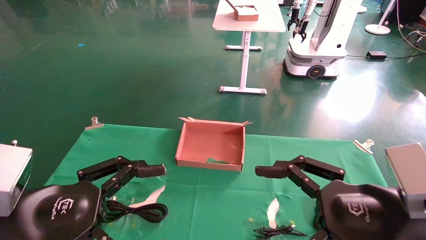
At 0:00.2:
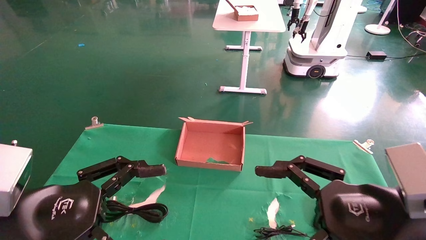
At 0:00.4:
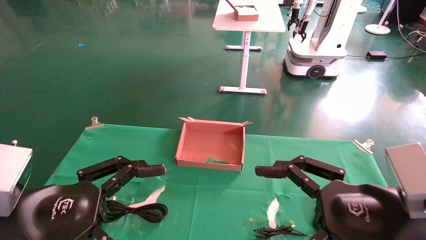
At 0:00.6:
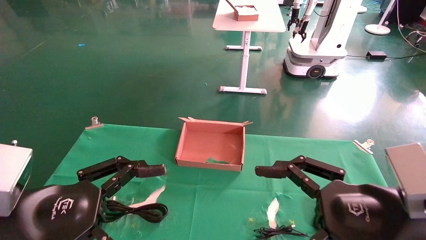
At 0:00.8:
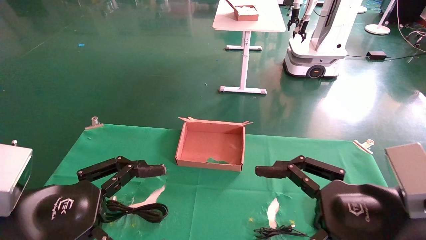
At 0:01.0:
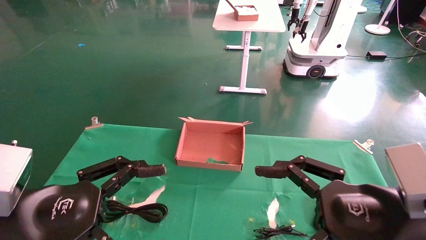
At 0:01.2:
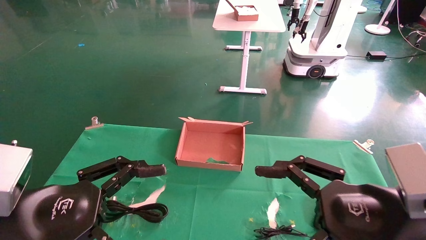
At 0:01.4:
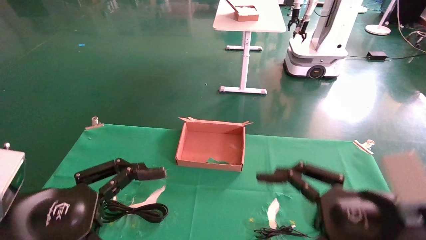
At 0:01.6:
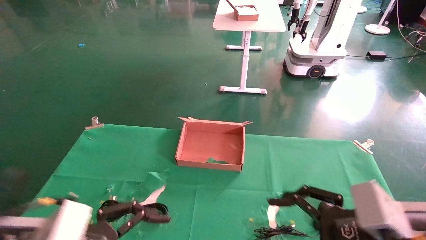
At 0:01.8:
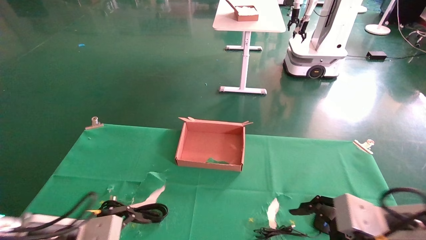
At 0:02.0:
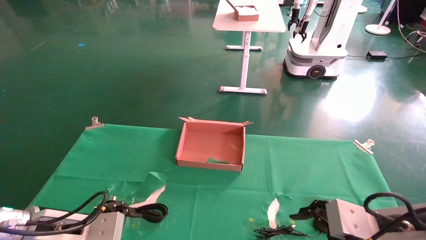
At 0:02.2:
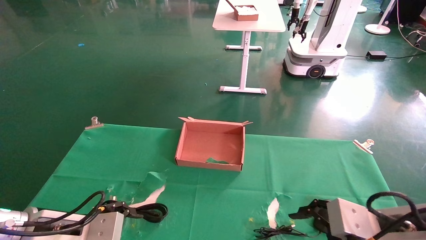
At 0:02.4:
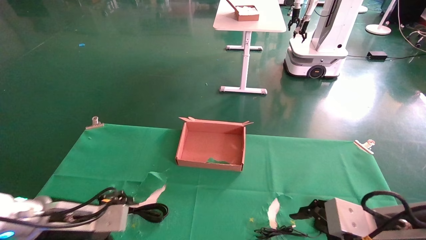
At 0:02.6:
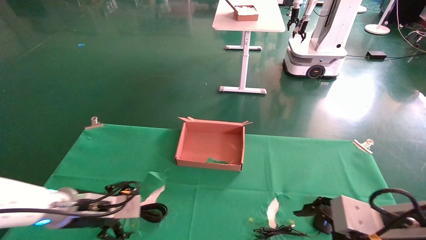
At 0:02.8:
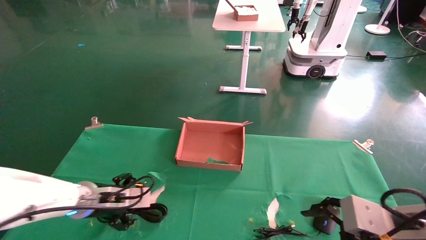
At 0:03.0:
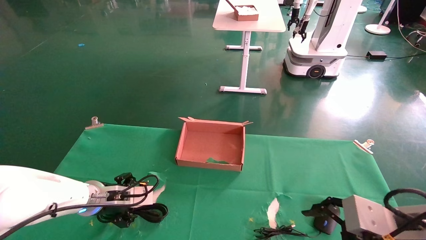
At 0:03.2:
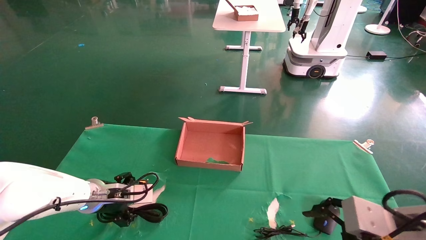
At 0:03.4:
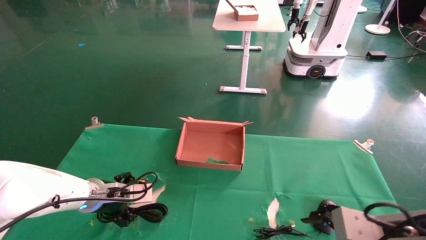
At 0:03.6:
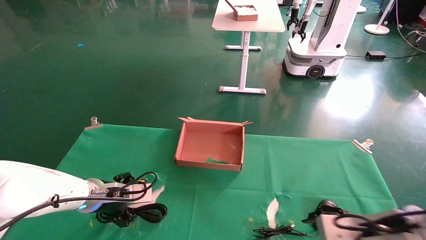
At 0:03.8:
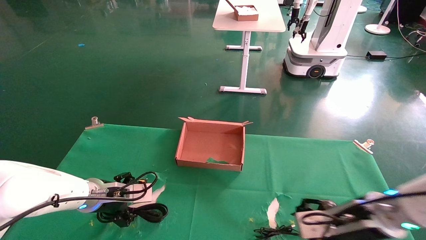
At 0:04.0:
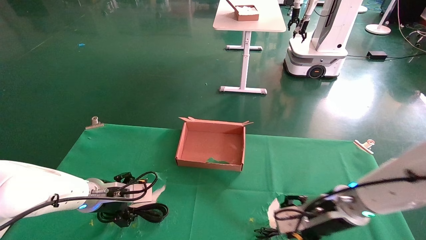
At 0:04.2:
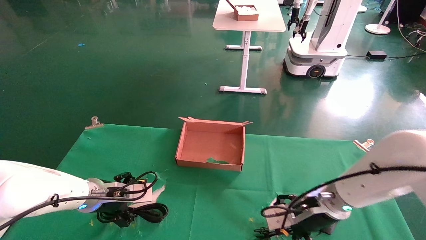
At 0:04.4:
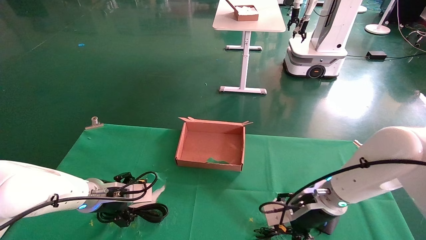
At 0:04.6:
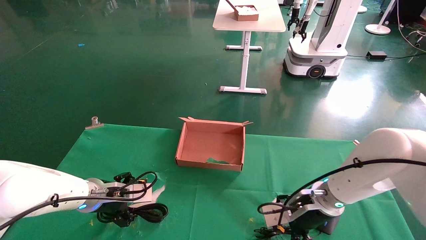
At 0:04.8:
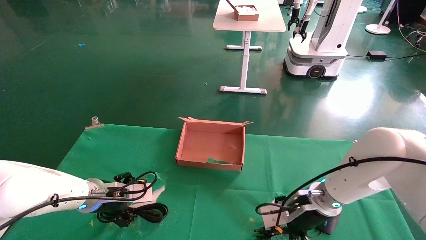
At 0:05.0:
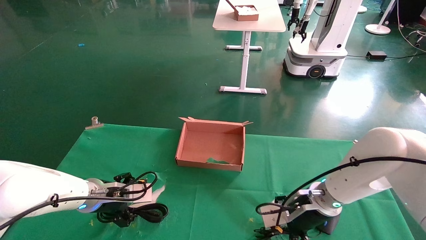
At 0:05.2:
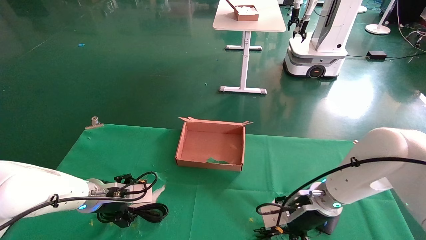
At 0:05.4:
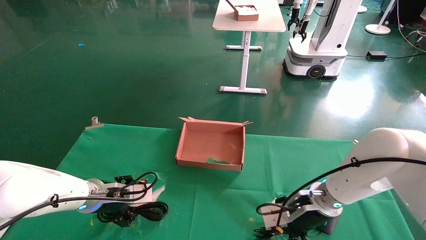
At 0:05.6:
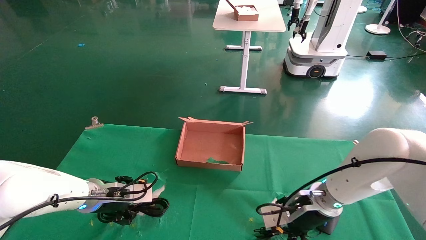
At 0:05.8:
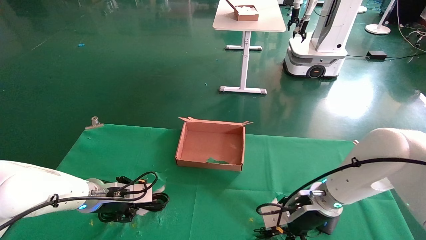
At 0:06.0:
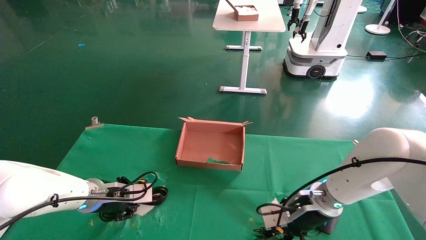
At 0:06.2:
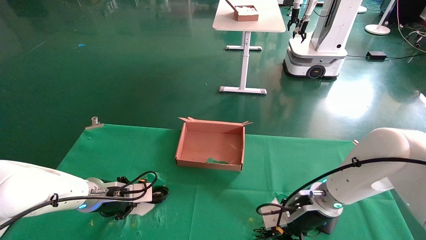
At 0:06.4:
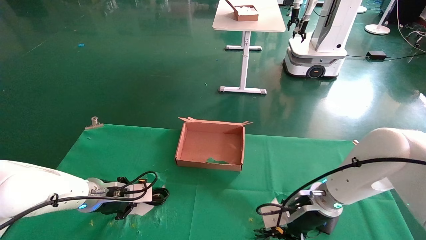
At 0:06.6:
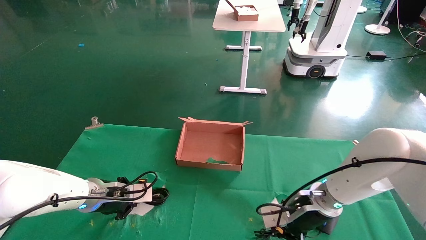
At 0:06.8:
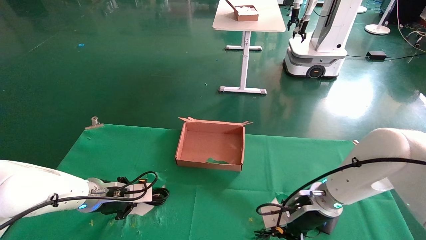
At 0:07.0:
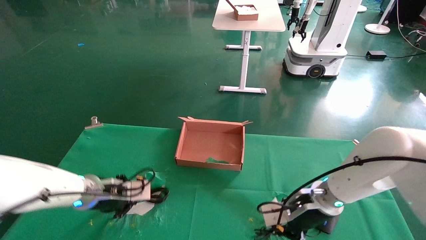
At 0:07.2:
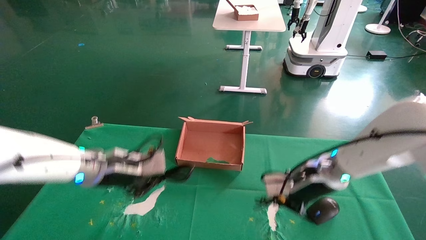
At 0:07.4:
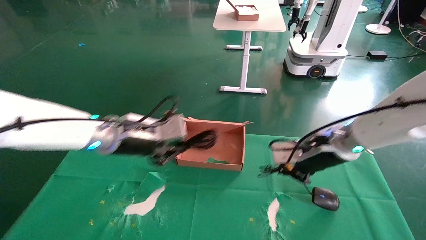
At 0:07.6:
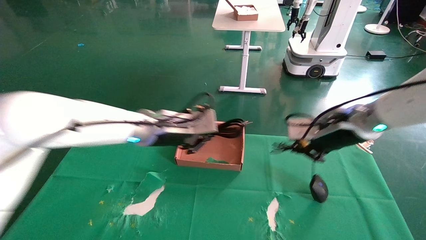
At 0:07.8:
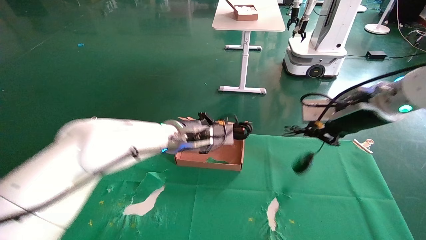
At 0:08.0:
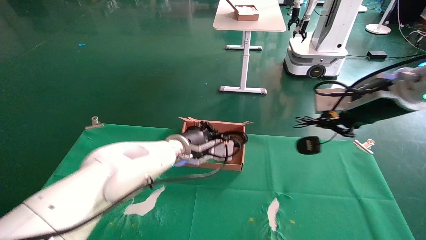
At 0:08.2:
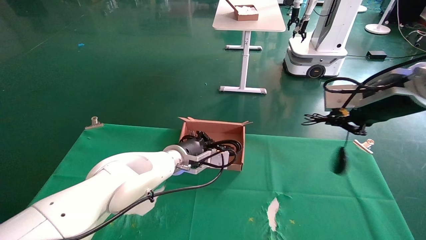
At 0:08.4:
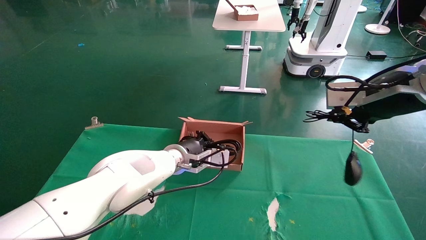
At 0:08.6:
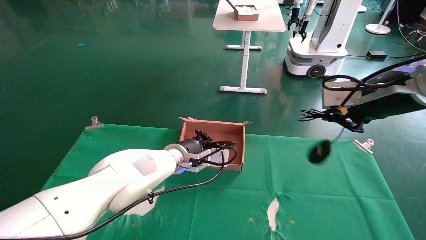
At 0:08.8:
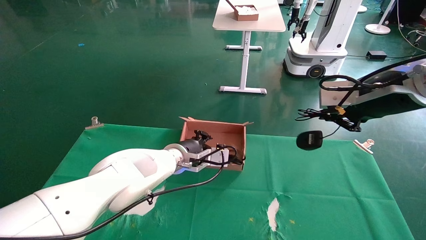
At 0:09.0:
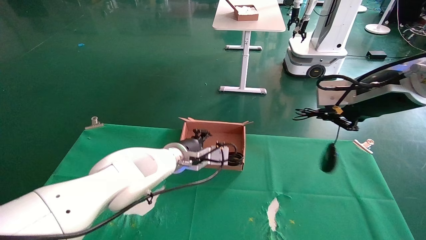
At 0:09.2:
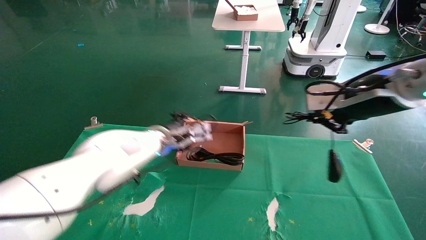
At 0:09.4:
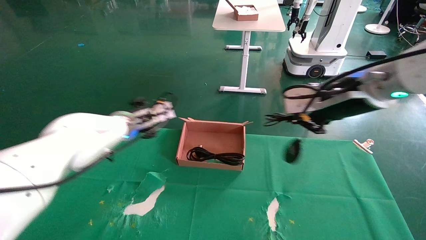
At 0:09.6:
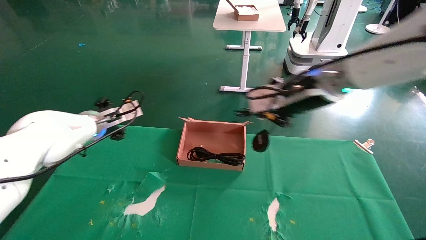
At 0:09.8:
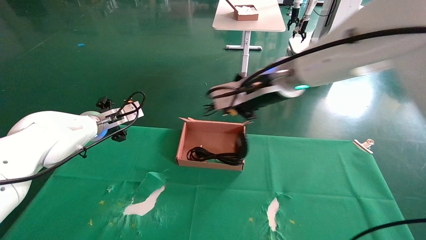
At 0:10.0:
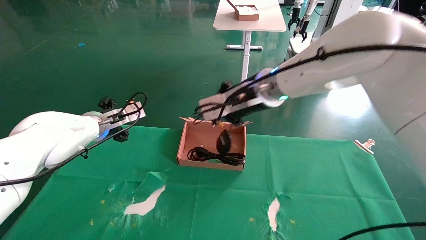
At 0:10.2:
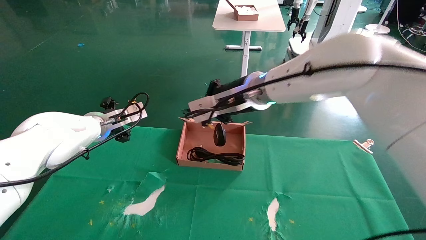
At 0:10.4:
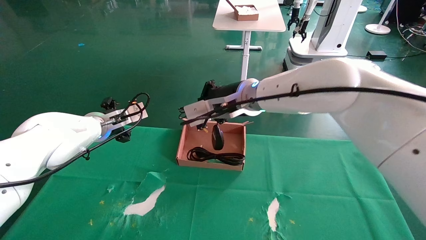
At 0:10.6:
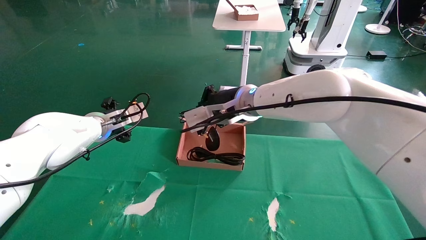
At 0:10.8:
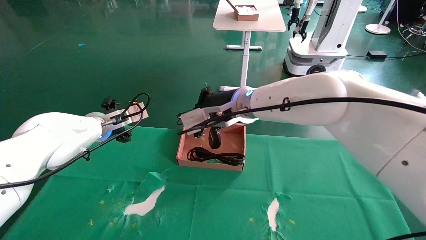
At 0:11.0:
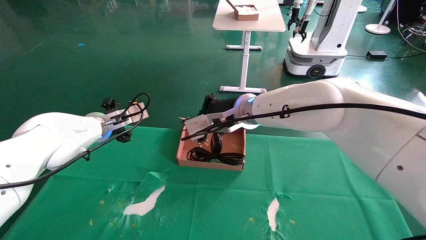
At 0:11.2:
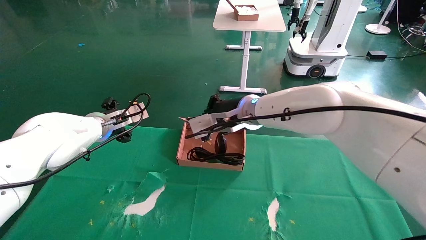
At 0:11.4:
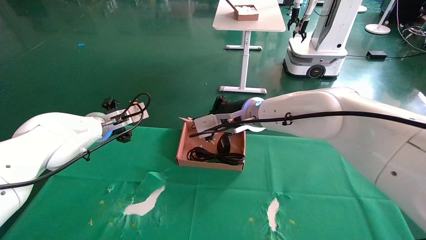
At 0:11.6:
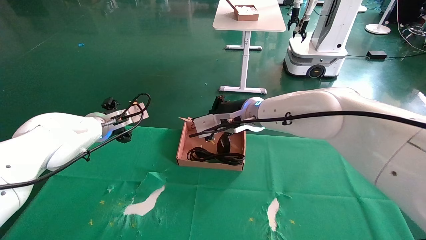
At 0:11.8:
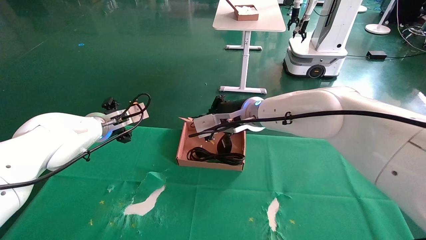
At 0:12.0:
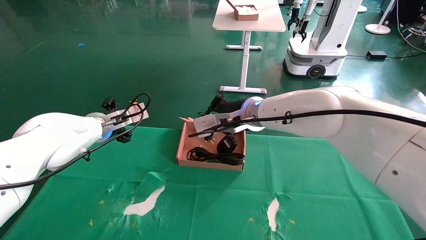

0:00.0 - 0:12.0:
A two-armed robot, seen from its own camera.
Step, 0:01.8 - 0:07.4: Grab and lift both the mouse and power cord from the accessory packaging area at the same time.
0:00.0 - 0:01.6: The left gripper goes roughly 5 cm downward.
0:01.6 - 0:03.0: The left gripper travels forward by some 15 cm.
0:03.0 - 0:04.4: The right gripper heads forward and to the left, covering about 20 cm.
0:04.4 - 0:06.0: The right gripper closes its fingers. The left gripper closes its fingers.
0:06.0 - 0:07.6: The left gripper is displaced to the right and upward by roughly 20 cm; the right gripper shifts some 15 cm upward, and closes.
0:07.6 - 0:09.0: The right gripper travels upward and backward by roughly 10 cm, while the left gripper shifts approximately 10 cm forward and downward.
0:09.0 - 0:10.4: The left gripper goes some 15 cm to the left, and opens. Meanwhile the right gripper travels to the left and forward by roughly 25 cm.
0:10.4 - 0:12.0: There are only small adjustments of the grippers.

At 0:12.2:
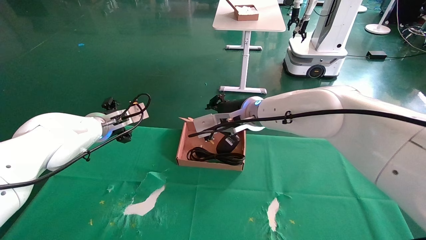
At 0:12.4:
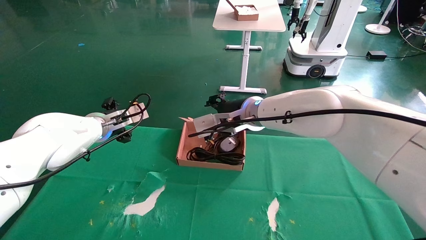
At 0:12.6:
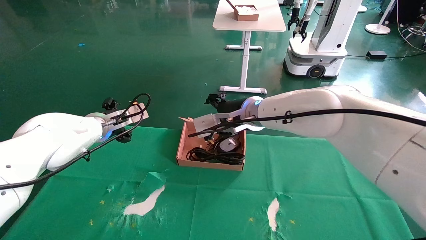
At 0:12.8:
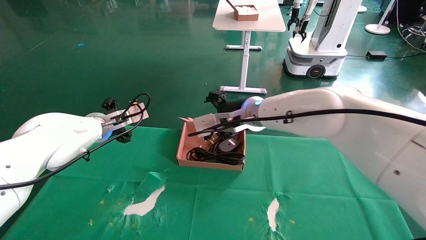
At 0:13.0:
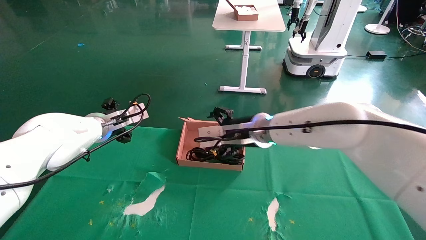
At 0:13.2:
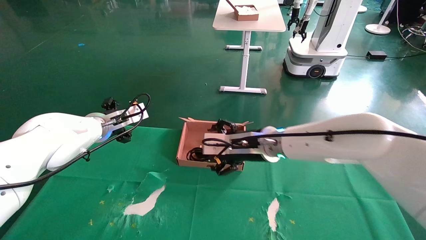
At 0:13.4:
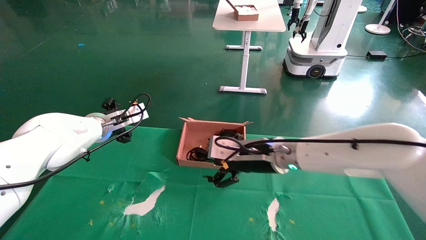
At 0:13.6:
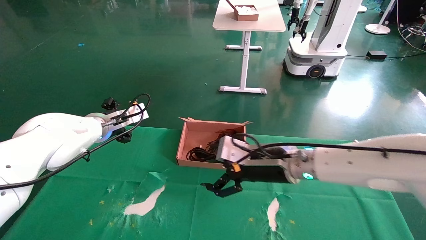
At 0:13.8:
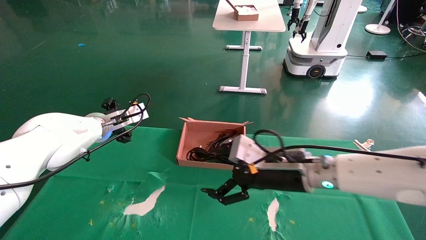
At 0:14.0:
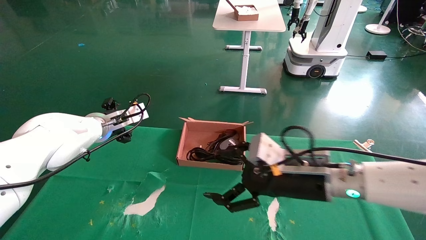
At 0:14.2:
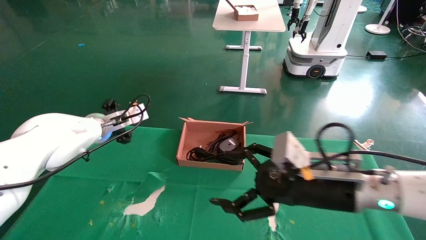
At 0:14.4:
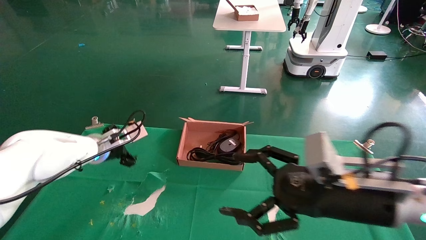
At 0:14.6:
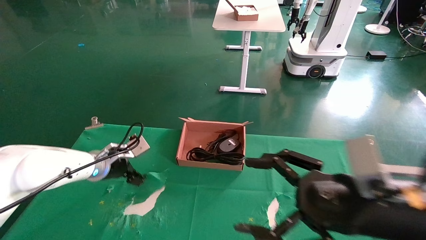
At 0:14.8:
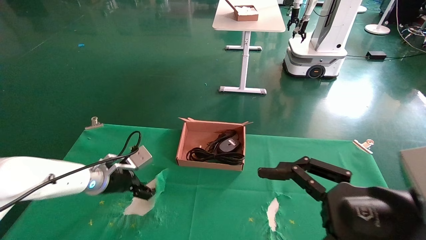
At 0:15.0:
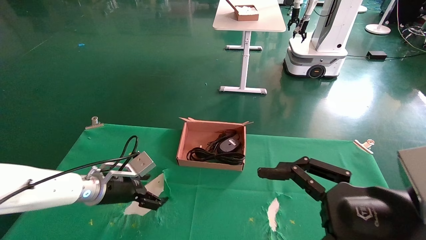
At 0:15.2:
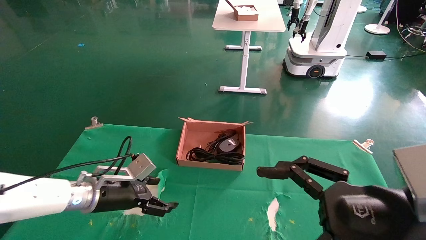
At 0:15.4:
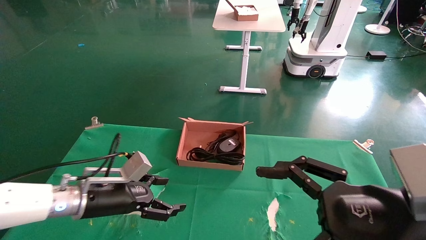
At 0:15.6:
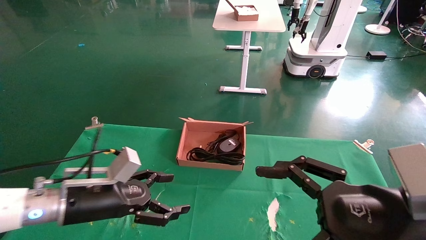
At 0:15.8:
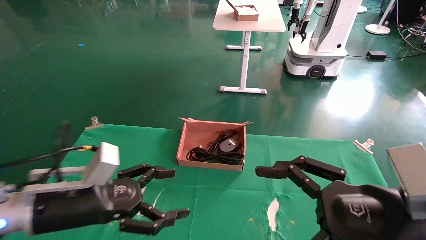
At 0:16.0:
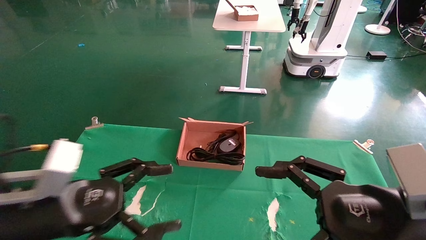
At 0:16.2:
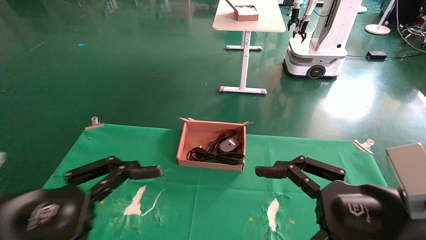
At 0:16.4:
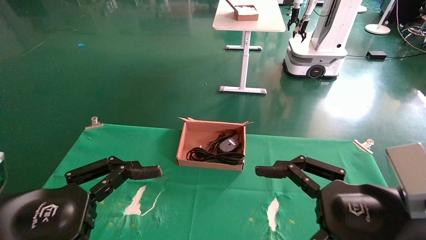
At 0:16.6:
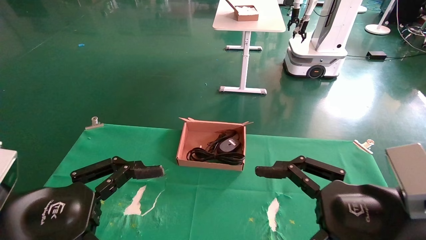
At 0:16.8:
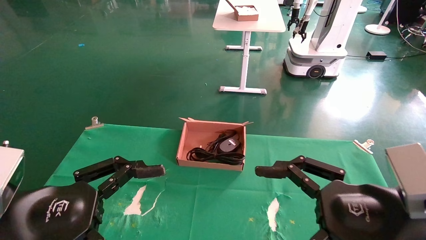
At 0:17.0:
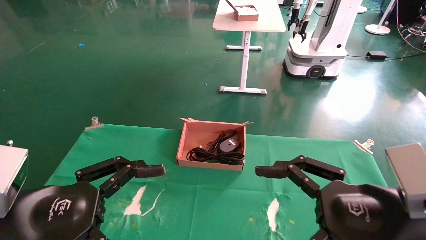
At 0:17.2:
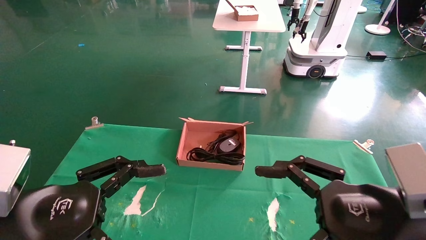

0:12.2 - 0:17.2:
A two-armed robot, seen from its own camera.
0:12.2 - 0:13.8: The right gripper is displaced backward, downward and to the right by approximately 15 cm, and opens up.
0:13.8 - 0:15.6: The left gripper is displaced backward and downward by some 20 cm. Meanwhile the right gripper moves backward and to the right, some 20 cm.
0:15.6 - 0:17.2: The left gripper heads backward and upward, covering roughly 15 cm.
